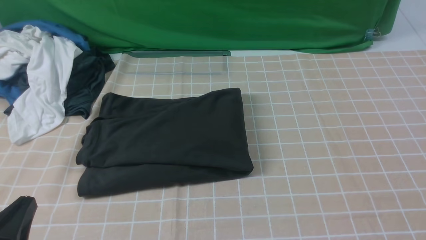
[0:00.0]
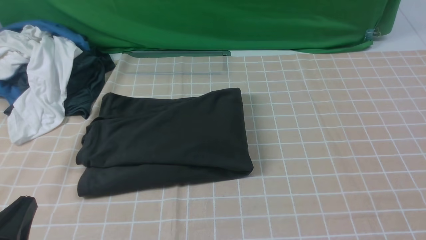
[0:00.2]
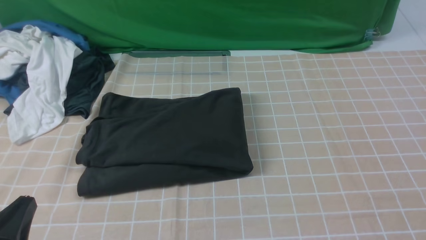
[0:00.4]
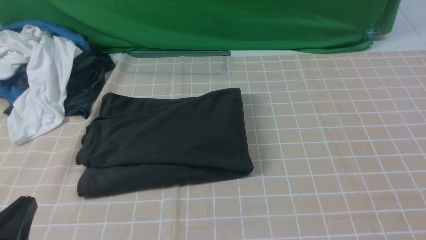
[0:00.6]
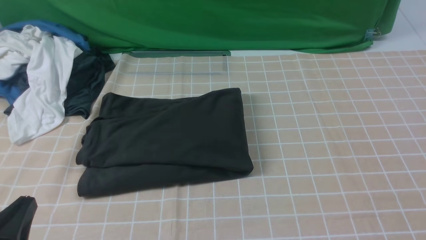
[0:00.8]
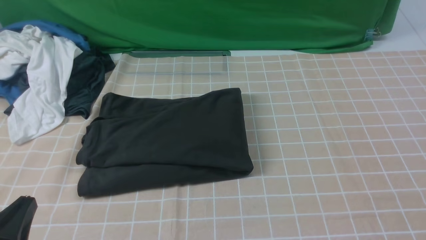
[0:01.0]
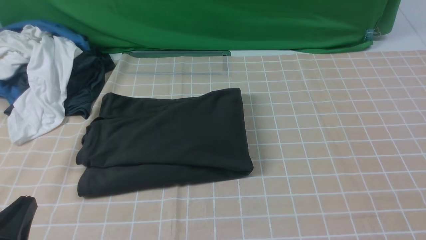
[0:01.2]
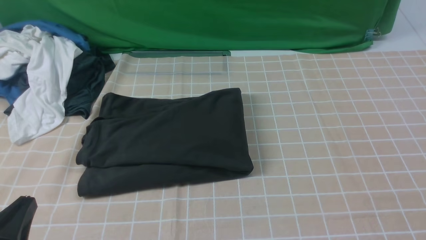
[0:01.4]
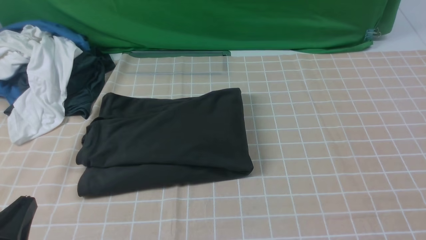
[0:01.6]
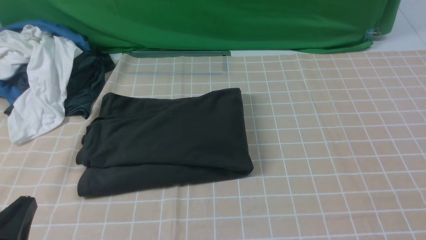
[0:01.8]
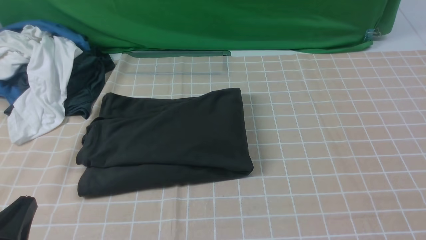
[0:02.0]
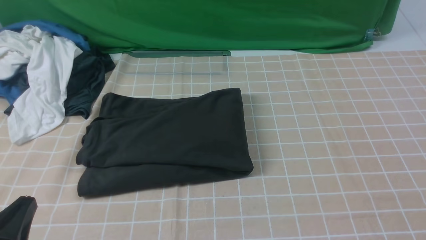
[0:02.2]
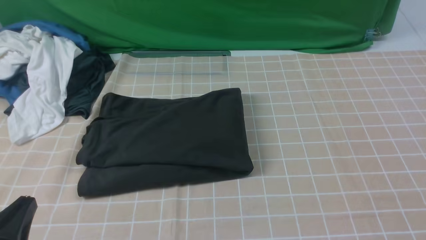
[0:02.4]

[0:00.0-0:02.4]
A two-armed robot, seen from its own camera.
0:01.2 to 0:02.4: Both grippers stay about where they are.
